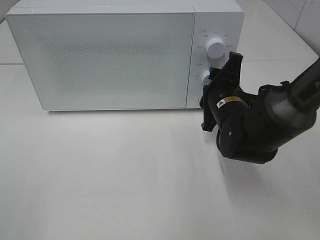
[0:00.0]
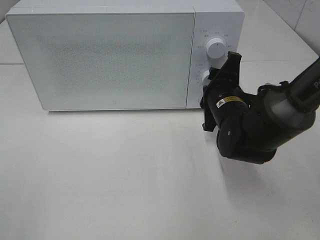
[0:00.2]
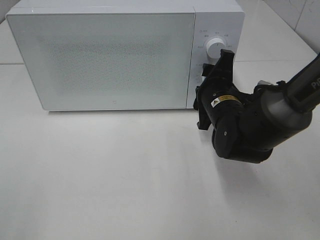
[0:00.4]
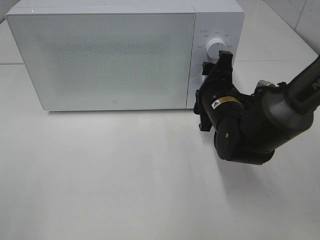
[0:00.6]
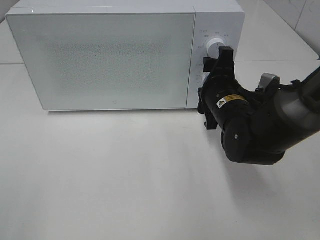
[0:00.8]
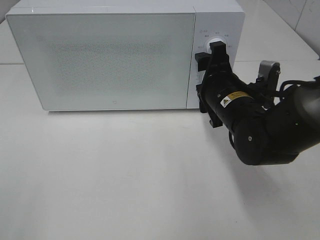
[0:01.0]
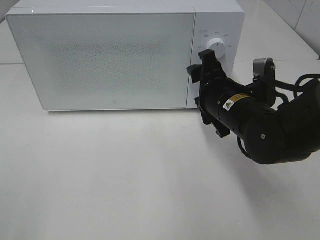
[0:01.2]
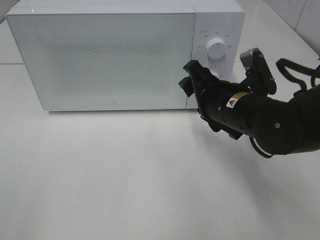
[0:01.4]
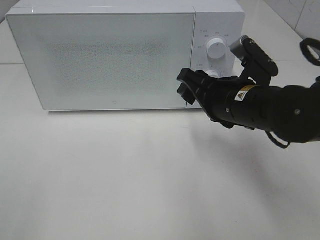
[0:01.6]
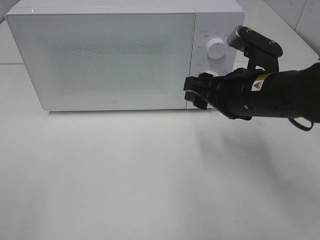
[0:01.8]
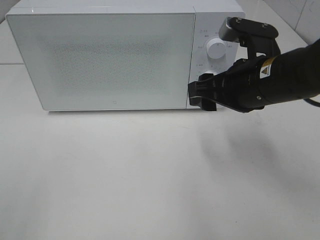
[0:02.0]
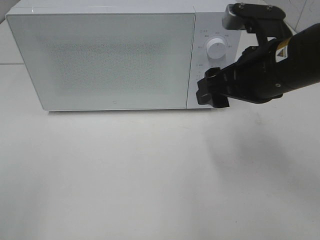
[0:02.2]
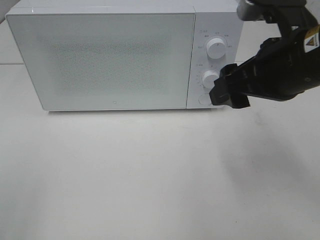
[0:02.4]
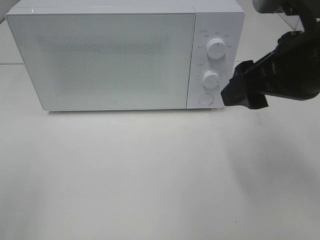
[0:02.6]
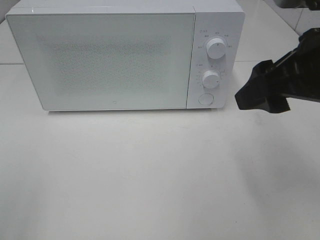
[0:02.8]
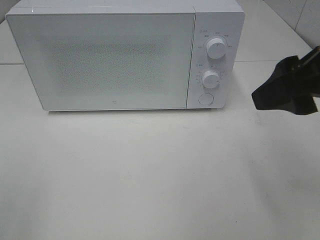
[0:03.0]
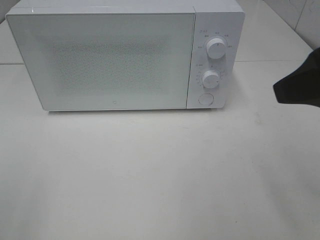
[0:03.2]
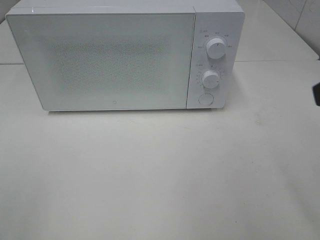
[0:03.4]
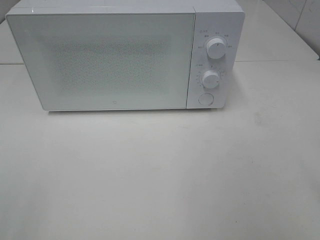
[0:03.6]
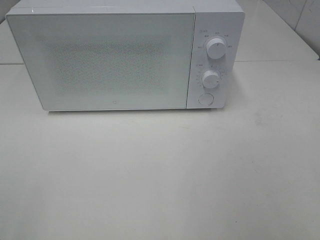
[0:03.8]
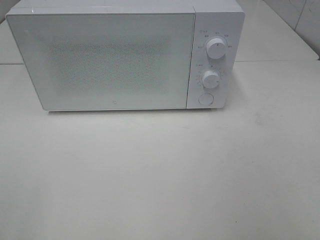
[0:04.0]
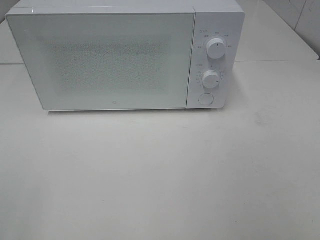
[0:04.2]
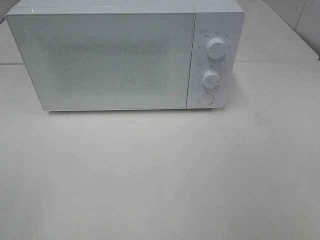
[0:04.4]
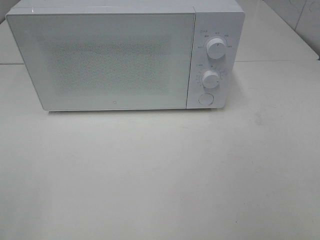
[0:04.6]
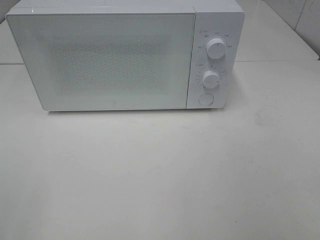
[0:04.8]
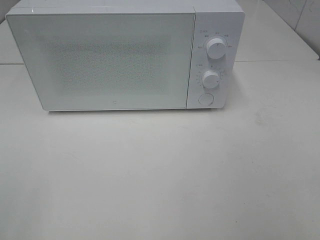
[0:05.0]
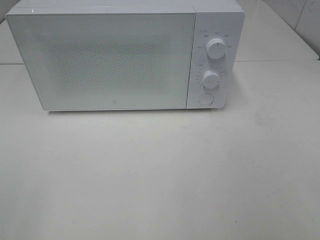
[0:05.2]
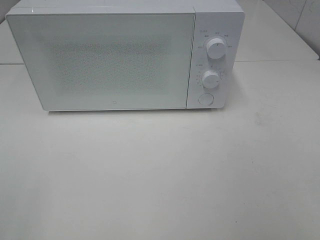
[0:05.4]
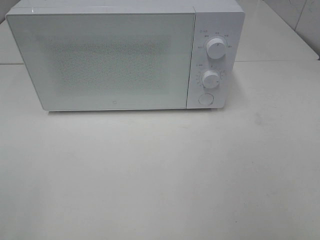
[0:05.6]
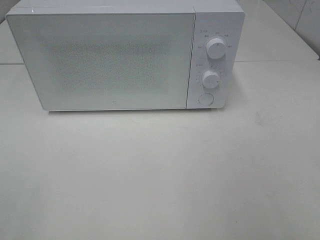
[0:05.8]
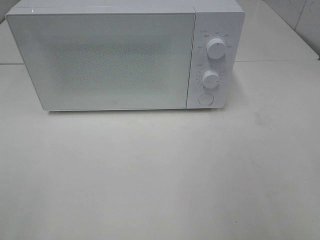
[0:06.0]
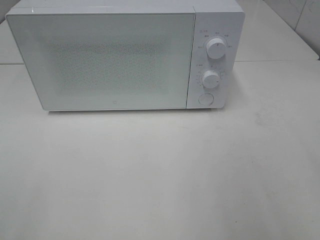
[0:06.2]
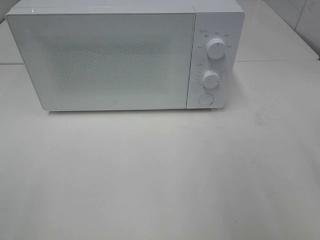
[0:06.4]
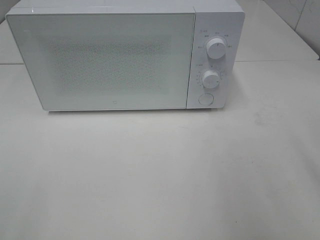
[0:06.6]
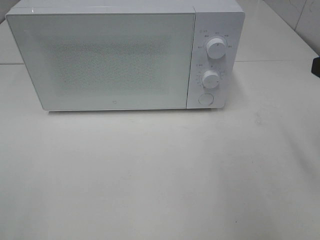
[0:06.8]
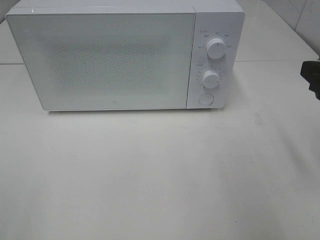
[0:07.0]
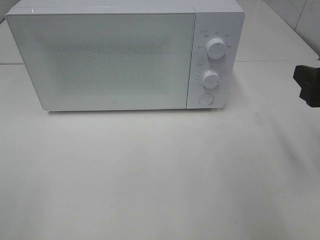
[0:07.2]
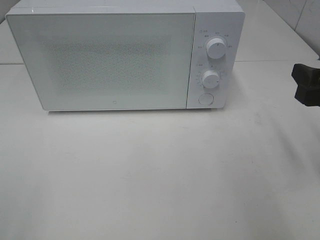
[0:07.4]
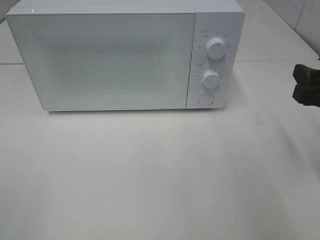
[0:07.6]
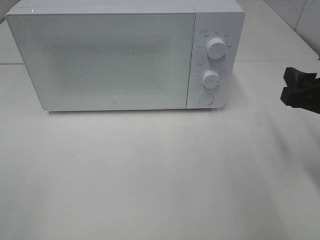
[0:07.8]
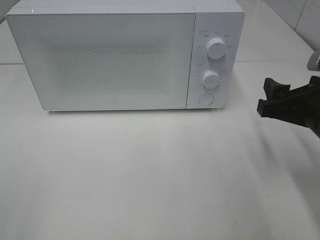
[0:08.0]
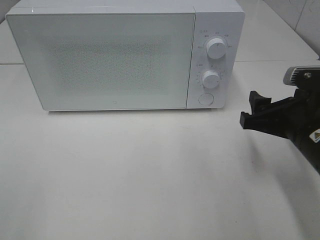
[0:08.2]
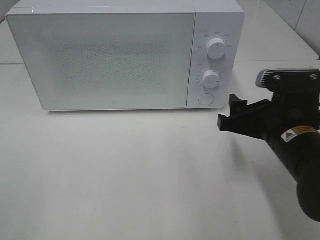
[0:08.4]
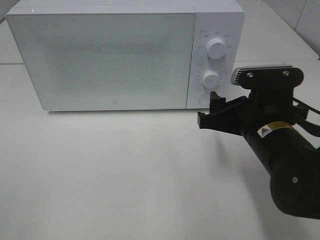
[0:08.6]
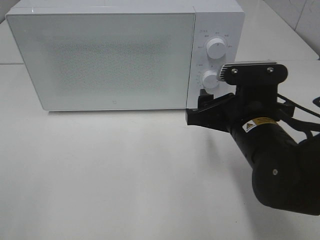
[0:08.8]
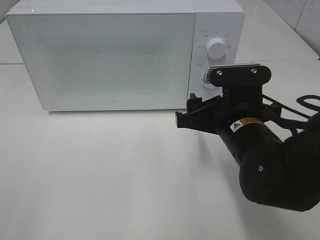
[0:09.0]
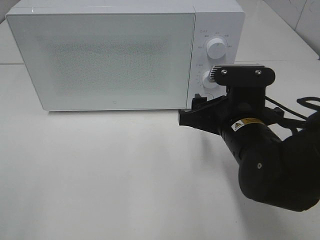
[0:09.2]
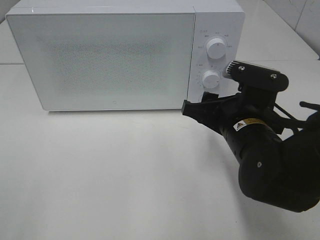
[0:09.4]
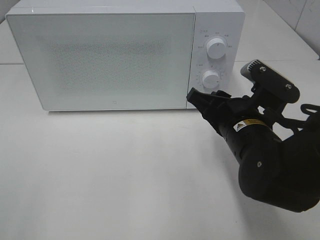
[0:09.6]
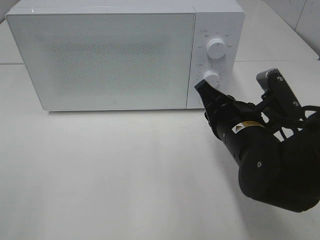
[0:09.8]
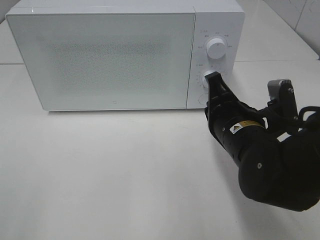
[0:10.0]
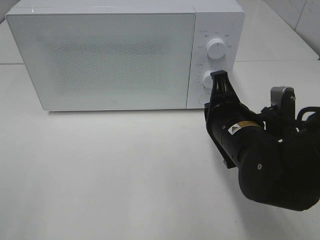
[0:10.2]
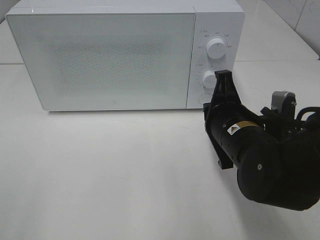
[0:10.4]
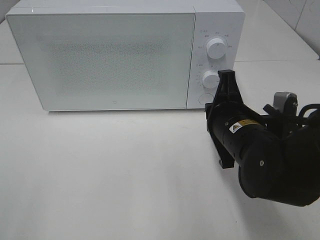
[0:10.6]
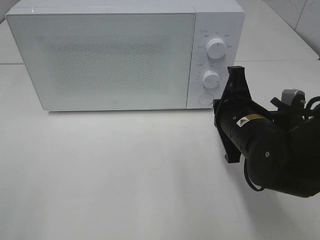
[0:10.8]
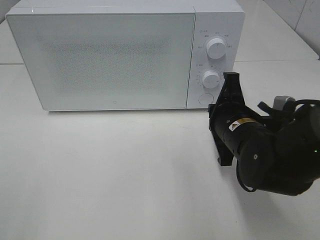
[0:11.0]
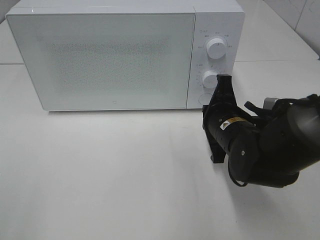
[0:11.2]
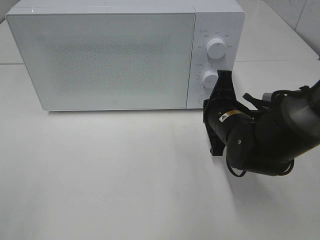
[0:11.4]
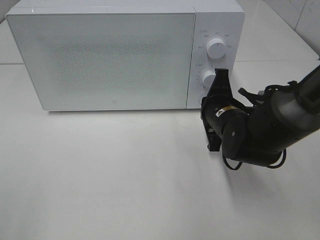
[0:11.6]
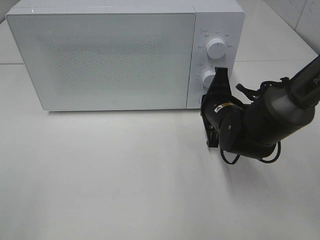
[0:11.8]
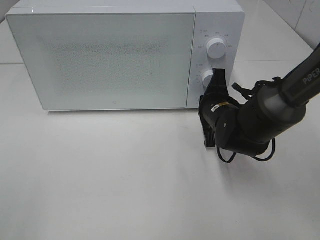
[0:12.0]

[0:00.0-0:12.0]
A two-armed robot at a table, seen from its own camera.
Task of the whole recording: Heat the burger.
0:00.0 to 0:01.6: The right gripper is displaced upward and backward by some 10 cm.
0:01.6 to 0:03.0: The right gripper shifts some 20 cm upward, backward and to the right.
0:03.0 to 0:04.4: The right gripper is displaced backward and to the right by roughly 20 cm.
0:06.0 to 0:07.6: The right gripper goes approximately 15 cm forward and downward.
0:07.6 to 0:09.0: The right gripper travels to the left by some 15 cm.
0:09.0 to 0:10.4: The right gripper closes.
0:10.4 to 0:12.0: The right gripper is displaced forward and downward by approximately 10 cm.

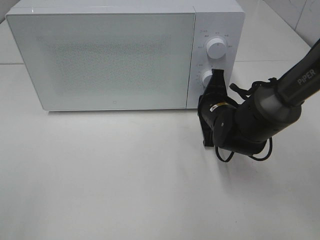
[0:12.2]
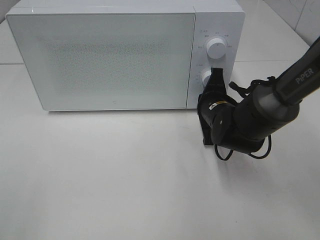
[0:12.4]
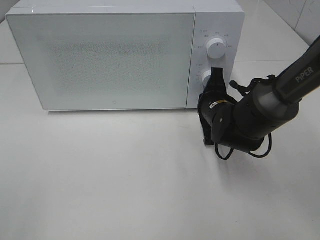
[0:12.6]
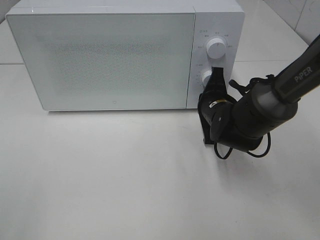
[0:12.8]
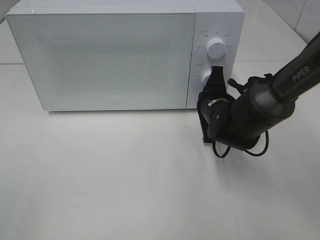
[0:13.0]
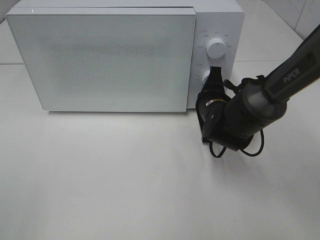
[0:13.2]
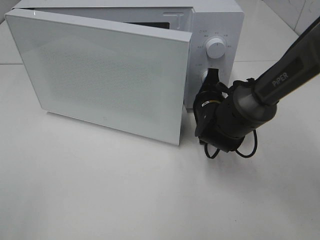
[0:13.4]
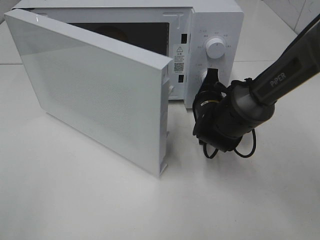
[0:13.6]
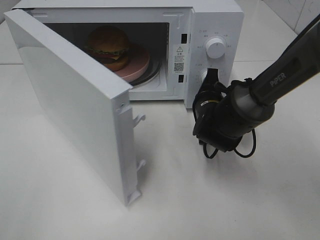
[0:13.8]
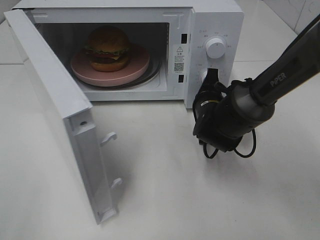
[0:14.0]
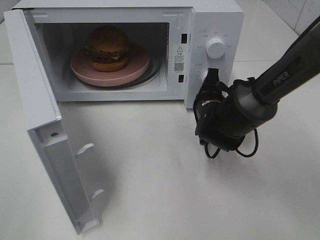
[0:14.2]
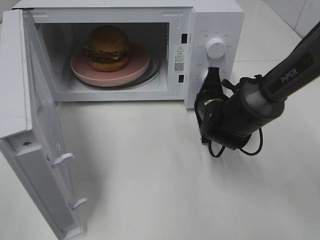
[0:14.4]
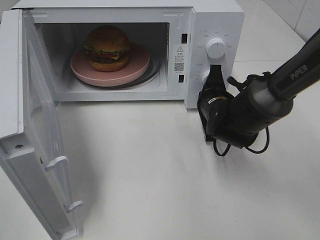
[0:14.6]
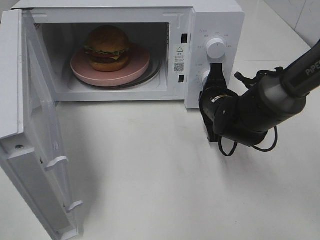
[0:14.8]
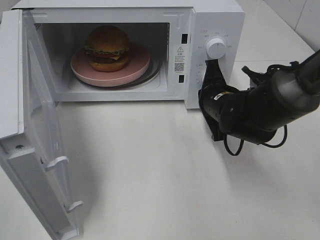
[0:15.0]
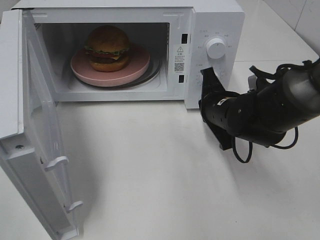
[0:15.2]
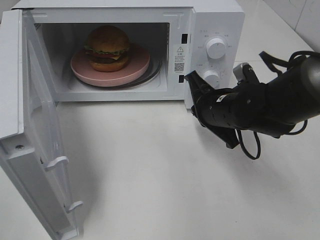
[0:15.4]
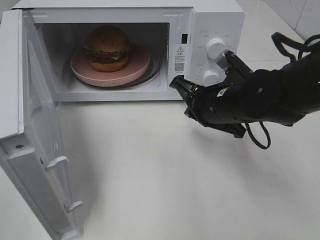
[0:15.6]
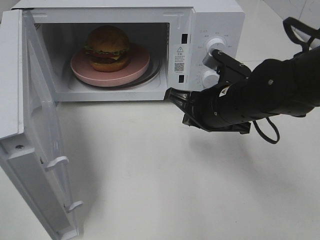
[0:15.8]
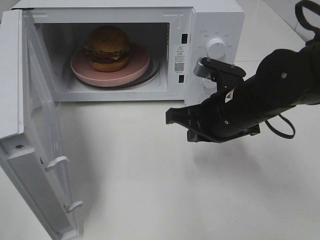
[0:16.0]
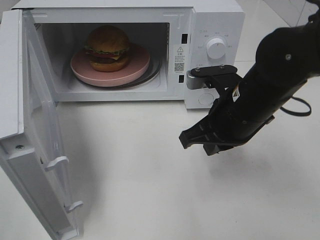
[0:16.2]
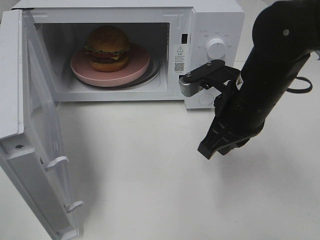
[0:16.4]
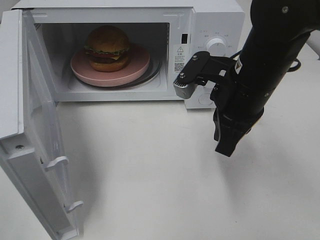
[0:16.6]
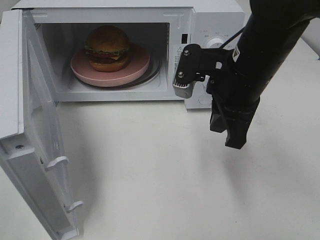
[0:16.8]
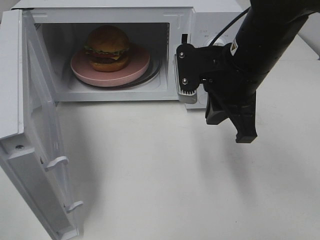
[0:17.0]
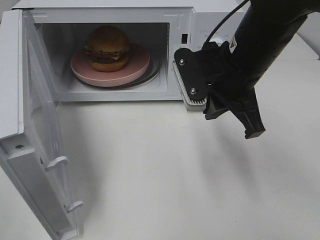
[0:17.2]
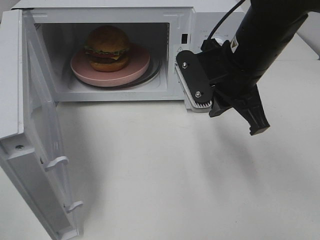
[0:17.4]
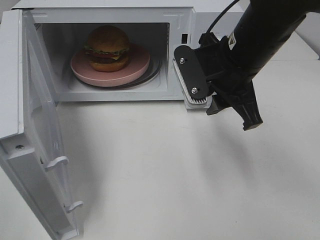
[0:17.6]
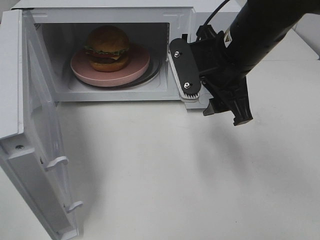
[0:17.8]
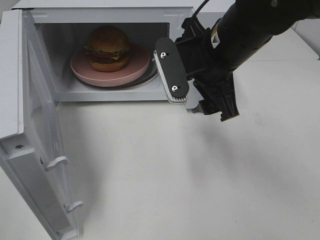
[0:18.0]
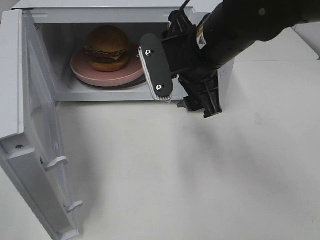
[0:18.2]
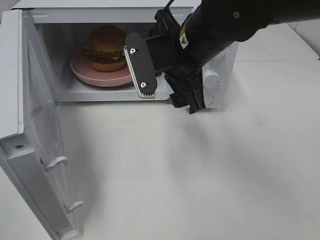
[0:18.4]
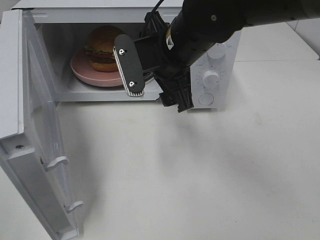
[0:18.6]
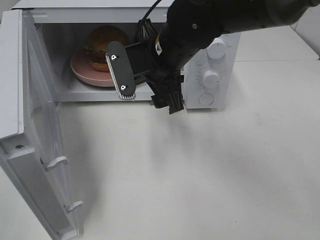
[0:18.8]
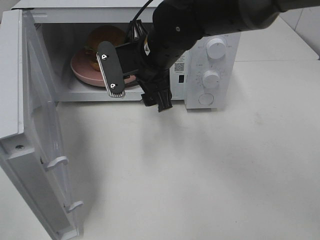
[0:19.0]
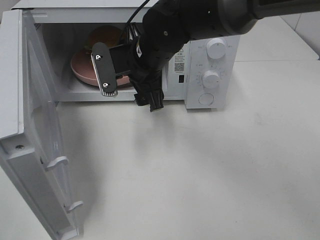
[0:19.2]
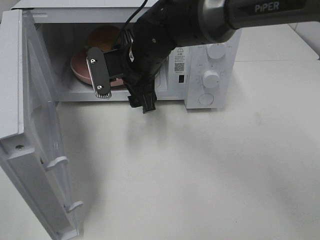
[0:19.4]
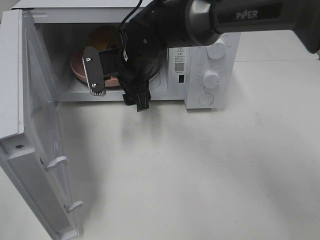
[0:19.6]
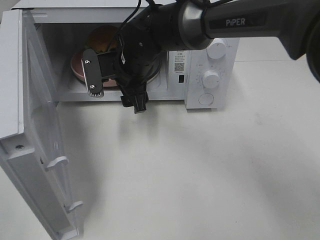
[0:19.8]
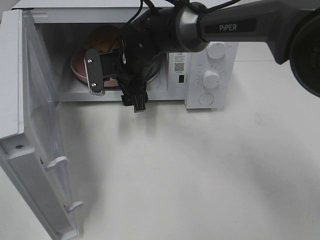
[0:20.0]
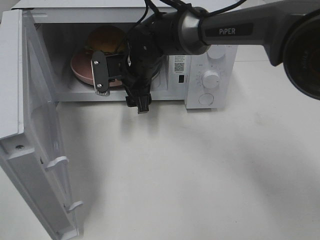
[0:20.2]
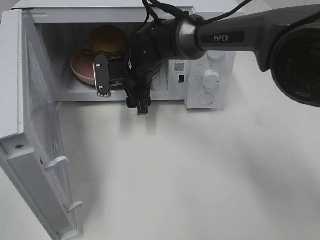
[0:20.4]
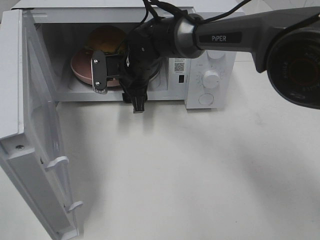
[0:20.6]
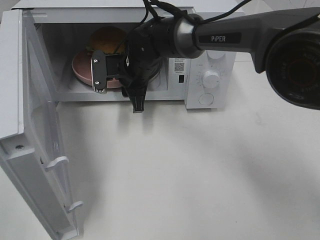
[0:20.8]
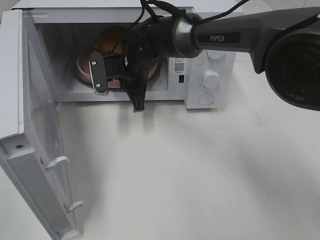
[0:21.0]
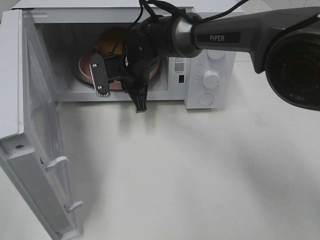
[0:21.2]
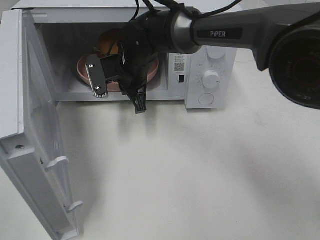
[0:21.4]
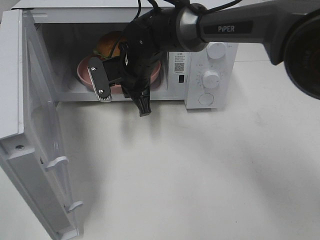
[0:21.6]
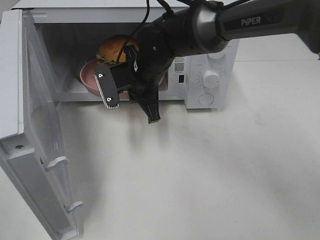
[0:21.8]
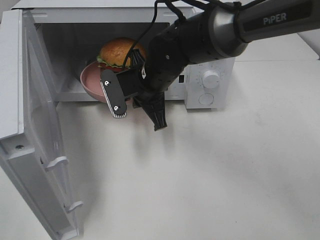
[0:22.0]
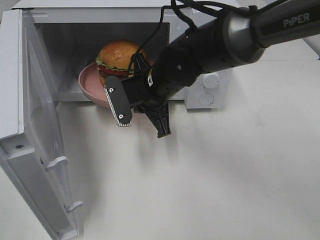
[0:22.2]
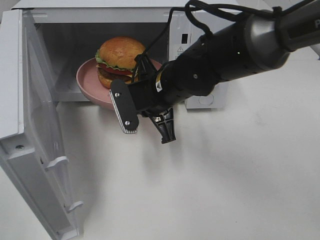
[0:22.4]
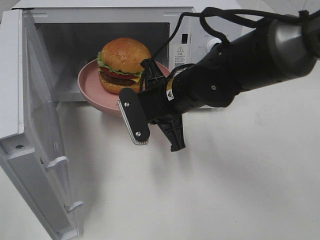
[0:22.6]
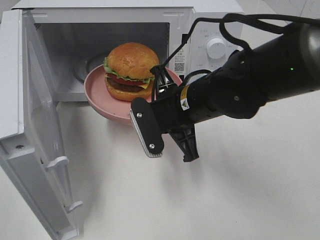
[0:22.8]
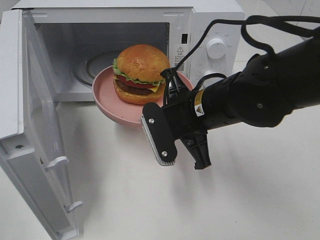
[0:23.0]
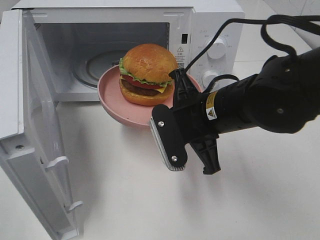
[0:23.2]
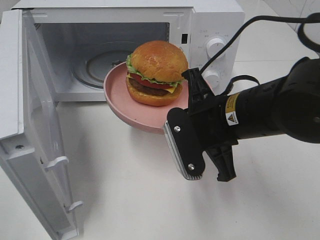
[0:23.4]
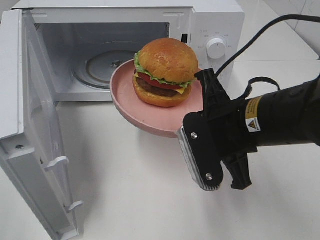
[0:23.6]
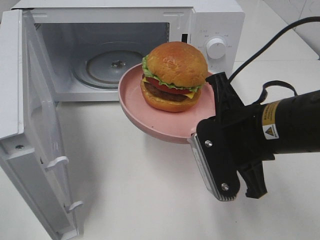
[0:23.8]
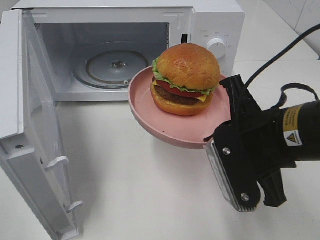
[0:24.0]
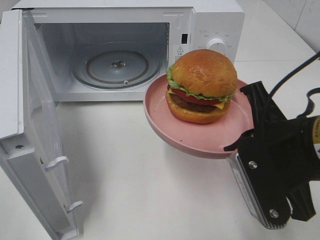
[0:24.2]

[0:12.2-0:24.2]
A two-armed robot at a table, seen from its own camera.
Task of the whole recording: Heat the burger.
Step, 0:12.2 to 0:15.0: Right hand: press the switch.
Step, 0:15.2 to 0:20.8: Right hand: grab the plate with the hamburger.
0:13.8 to 0:15.2: The right gripper changes place by roughly 5 cm.
0:15.2 to 0:16.6: The right gripper travels upward by approximately 10 cm.
0:16.6 to 0:18.2: The right gripper moves to the left, about 5 cm, and opens up.
0:18.2 to 0:19.8: The right gripper heads to the left, forward and downward, covering approximately 15 cm.
0:19.8 to 0:21.2: The right gripper closes its fingers.
0:21.2 to 0:22.6: The right gripper shifts about 15 cm backward and to the right.
0:22.6 to 0:24.2: The right gripper moves backward and to the right, some 20 cm.
